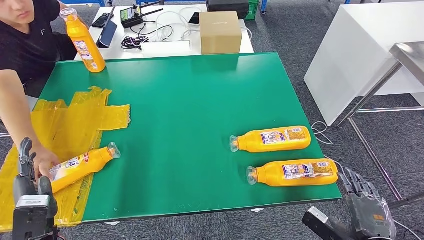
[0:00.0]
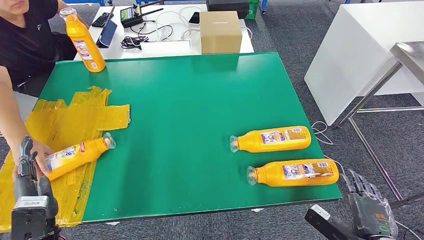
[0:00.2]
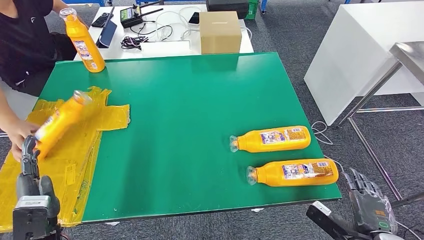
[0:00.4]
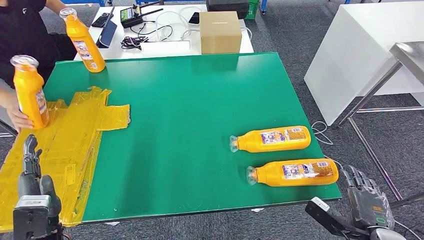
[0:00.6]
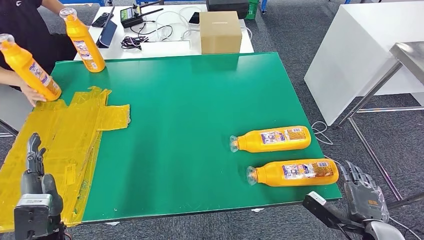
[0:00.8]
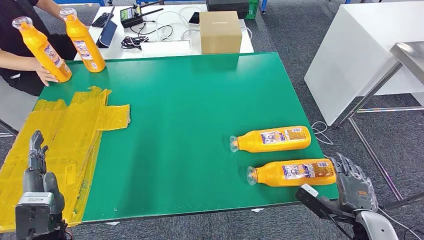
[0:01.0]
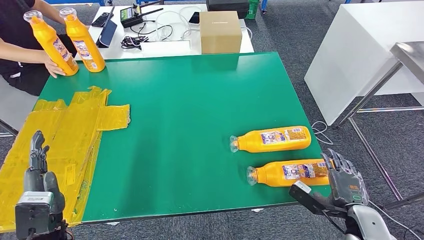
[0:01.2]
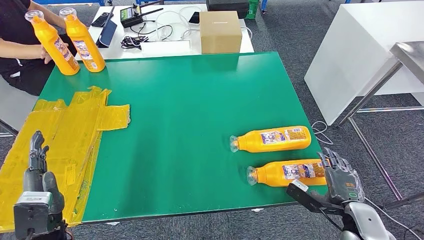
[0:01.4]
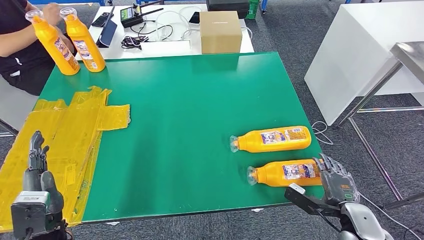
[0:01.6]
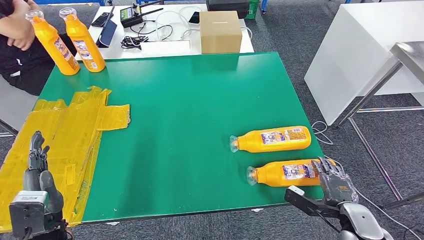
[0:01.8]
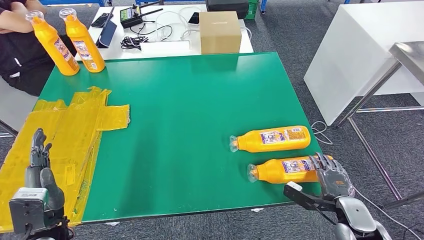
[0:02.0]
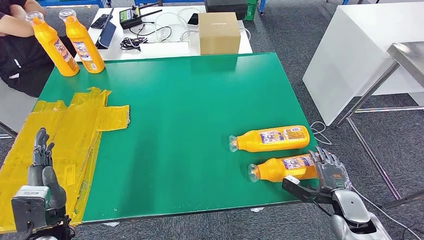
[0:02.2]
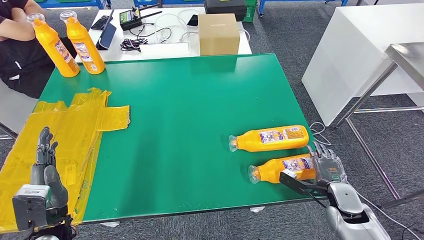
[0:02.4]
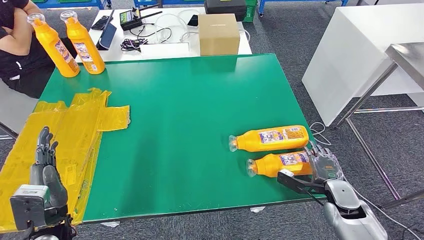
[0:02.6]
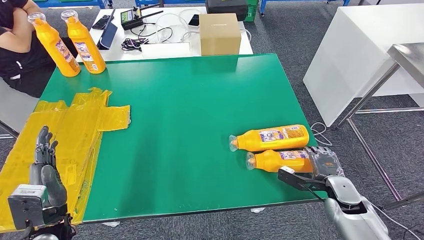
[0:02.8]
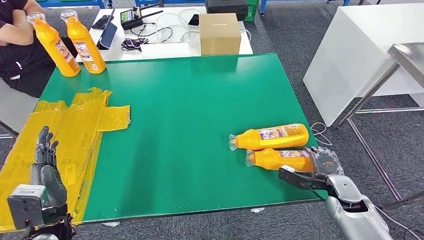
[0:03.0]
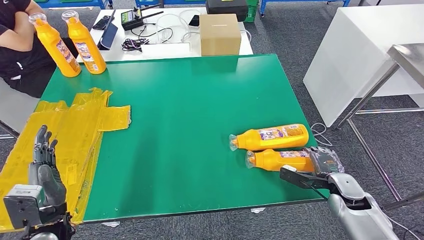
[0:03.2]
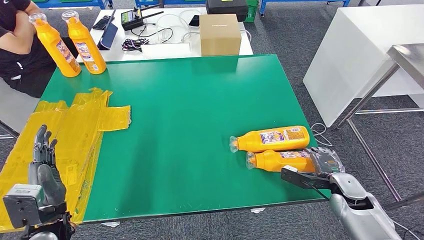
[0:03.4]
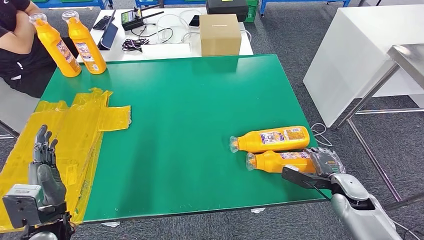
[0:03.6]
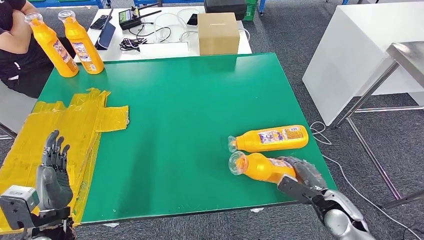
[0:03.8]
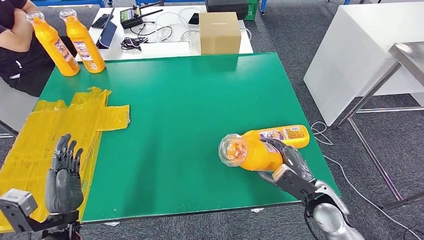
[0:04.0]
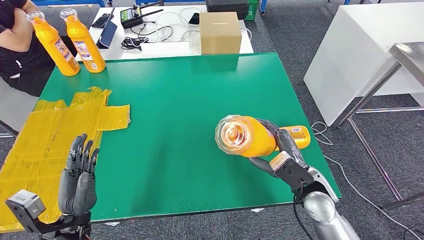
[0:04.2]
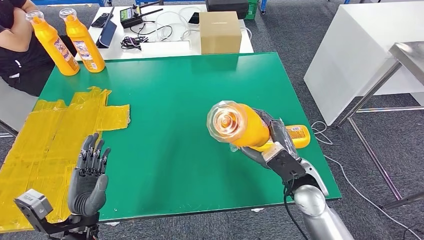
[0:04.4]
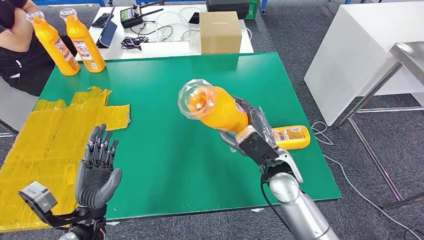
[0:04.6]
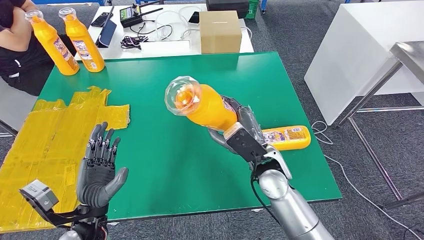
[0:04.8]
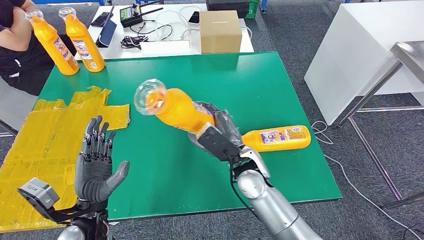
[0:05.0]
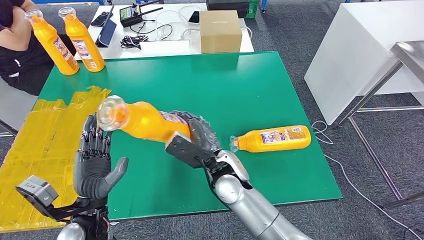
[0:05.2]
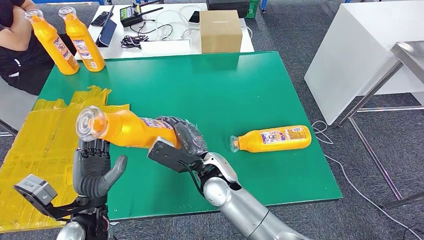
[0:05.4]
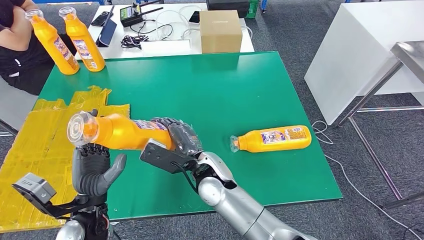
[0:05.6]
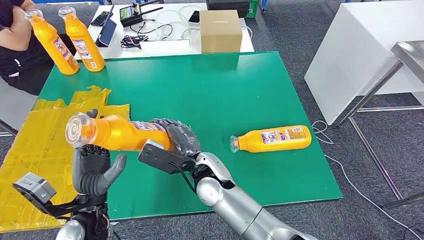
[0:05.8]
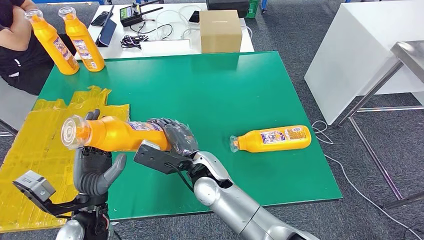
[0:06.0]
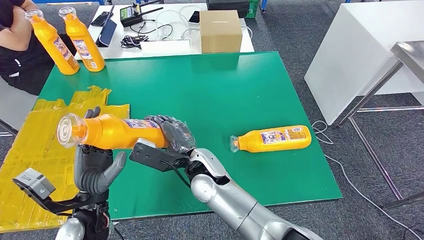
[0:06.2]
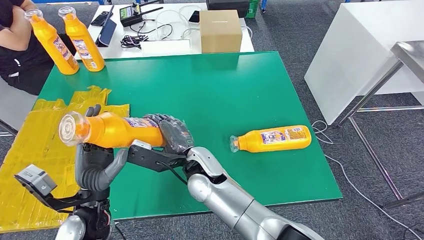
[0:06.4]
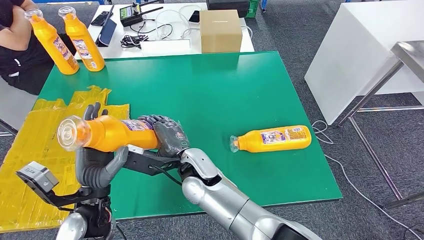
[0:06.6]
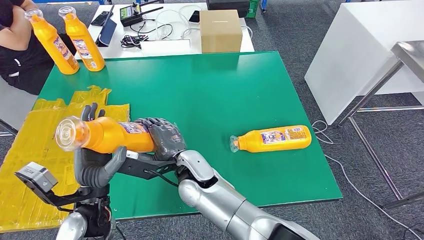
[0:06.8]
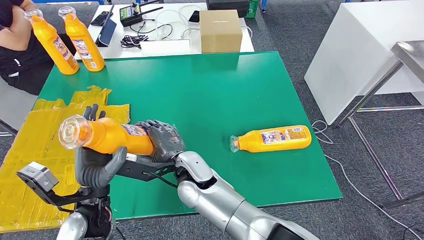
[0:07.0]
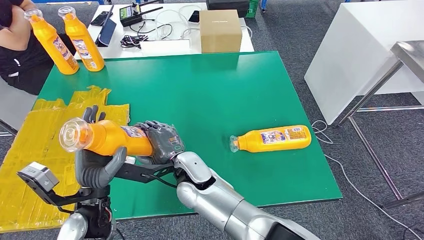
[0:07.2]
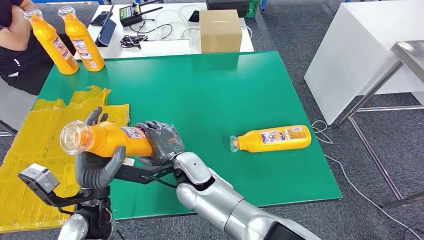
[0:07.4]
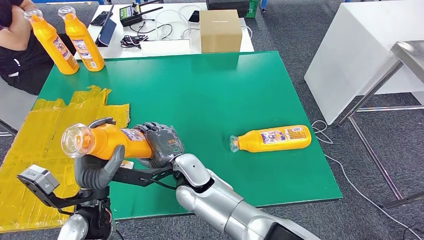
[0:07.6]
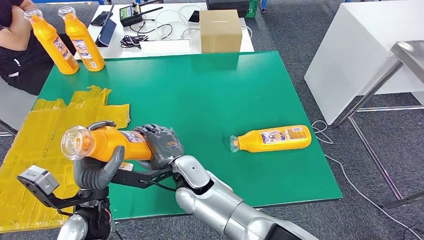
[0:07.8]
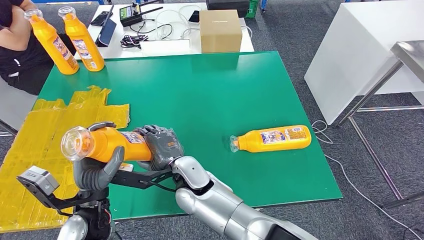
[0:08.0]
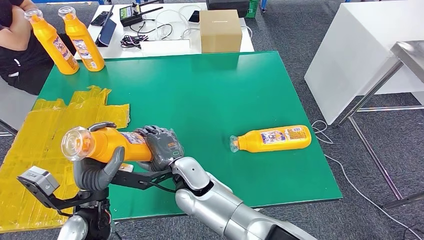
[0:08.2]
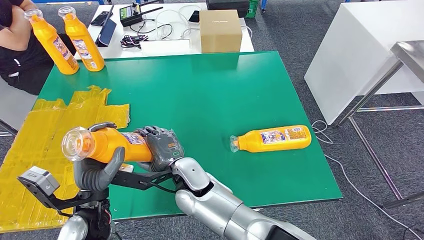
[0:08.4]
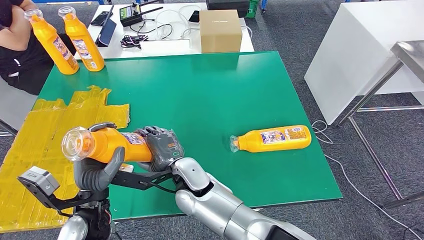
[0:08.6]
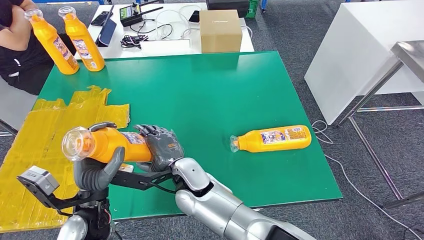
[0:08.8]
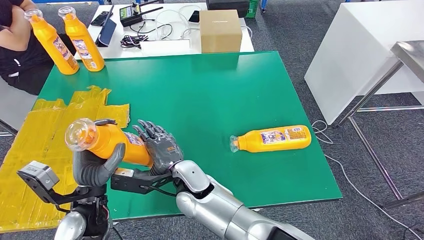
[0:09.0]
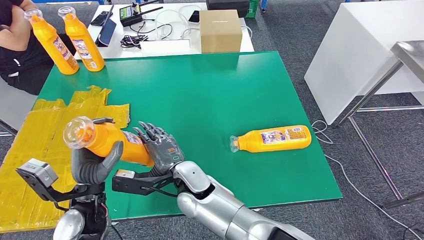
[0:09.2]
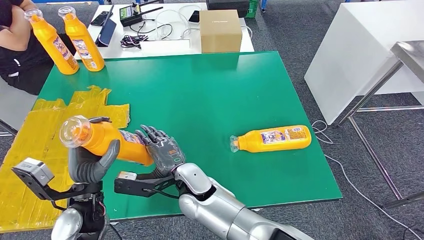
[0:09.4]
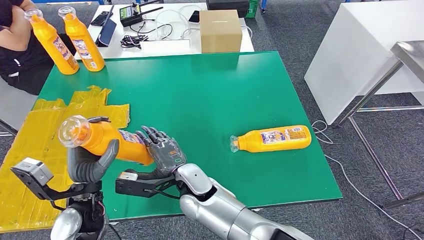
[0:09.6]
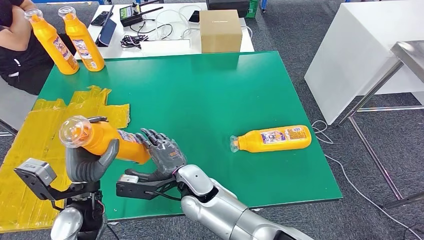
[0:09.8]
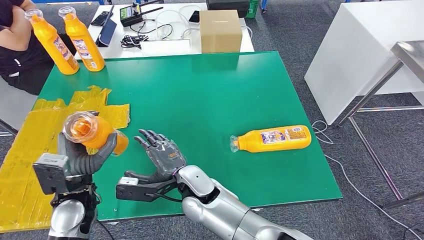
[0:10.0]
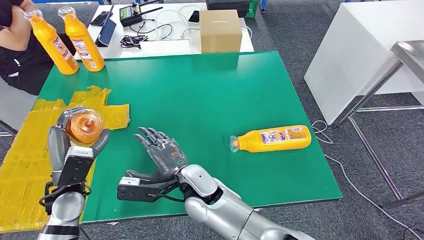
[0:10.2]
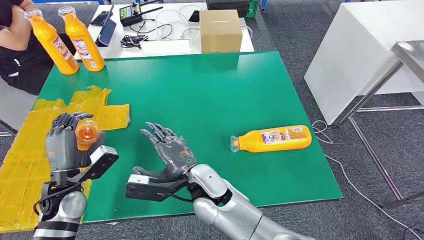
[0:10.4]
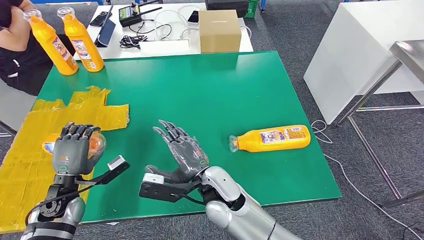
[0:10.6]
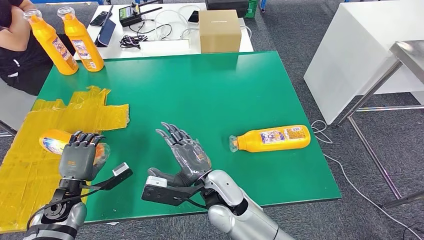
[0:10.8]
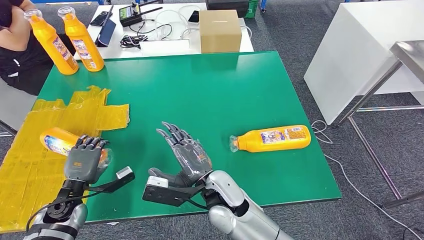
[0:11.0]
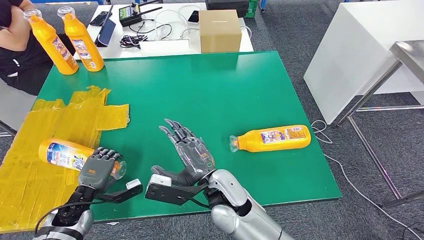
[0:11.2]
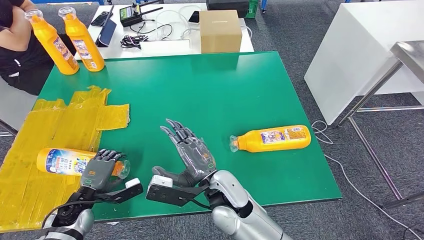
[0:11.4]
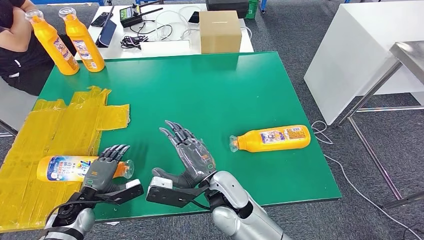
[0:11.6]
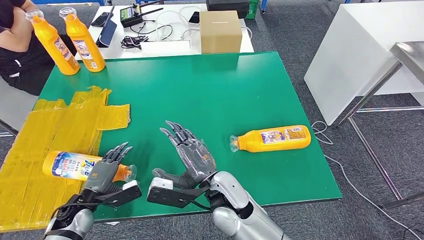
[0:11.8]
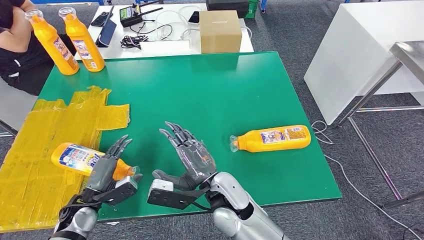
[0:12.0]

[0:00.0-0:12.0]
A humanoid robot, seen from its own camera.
Step, 0:00.0 to 0:05.8: Pick up the fast-moving consumer goods bottle from the table.
Step, 0:06.0 to 0:11.6: Flip the fast-moving consumer goods bottle to the front side.
0:00.0 to 0:01.6: The right hand goes roughly 10 cm forward.
0:01.6 to 0:03.0: The right hand is displaced forward by some 10 cm.
0:06.0 to 0:07.6: The right hand changes place by some 5 cm.
0:07.6 to 0:09.0: Both hands stay put.
0:09.0 to 0:10.4: The left hand shifts approximately 10 cm to the left and forward.
0:10.4 to 0:12.0: The left hand travels downward by some 10 cm. The right hand changes place by some 5 cm.

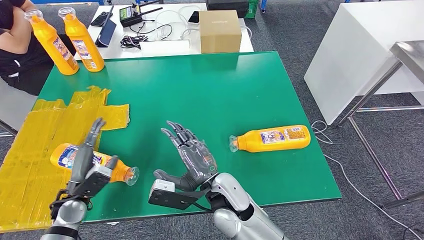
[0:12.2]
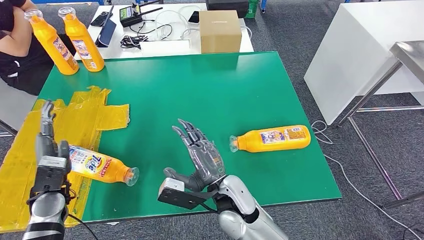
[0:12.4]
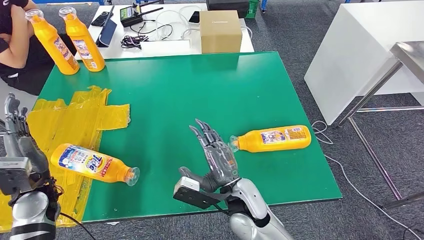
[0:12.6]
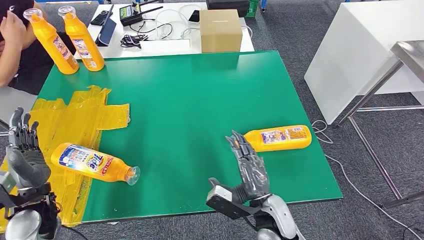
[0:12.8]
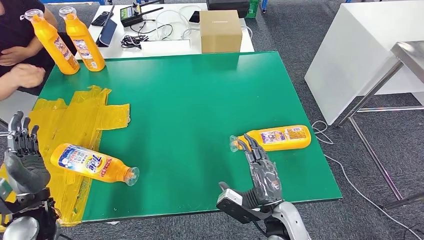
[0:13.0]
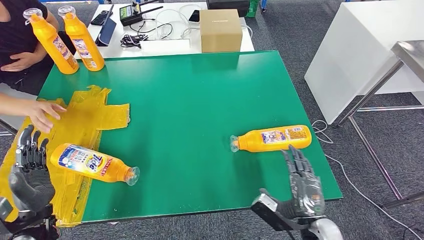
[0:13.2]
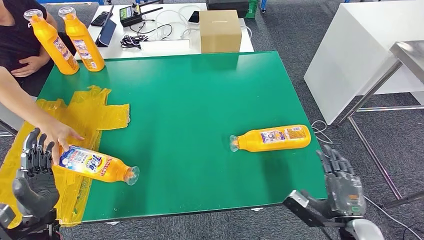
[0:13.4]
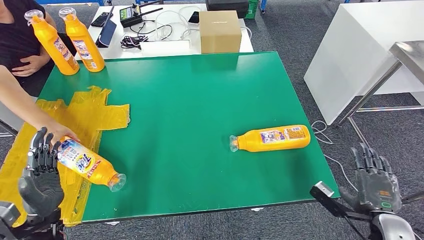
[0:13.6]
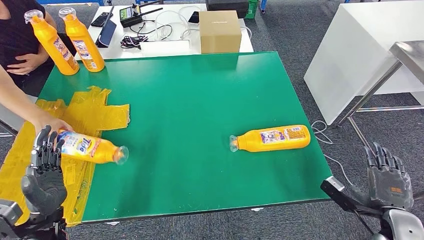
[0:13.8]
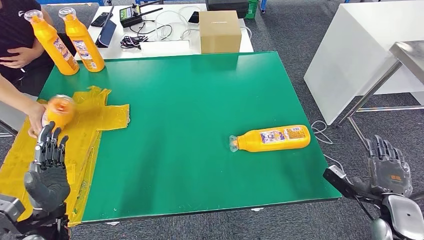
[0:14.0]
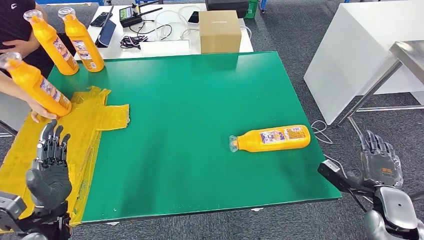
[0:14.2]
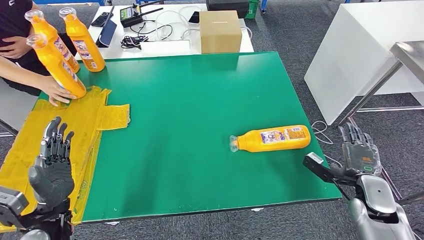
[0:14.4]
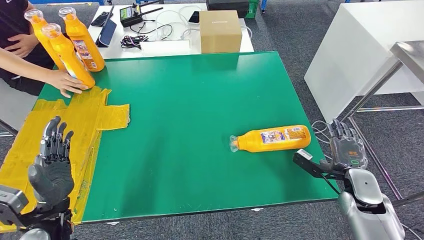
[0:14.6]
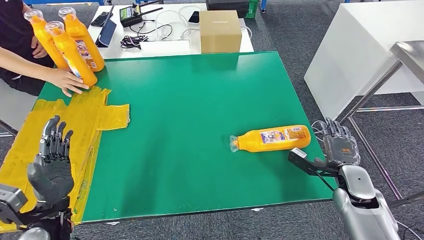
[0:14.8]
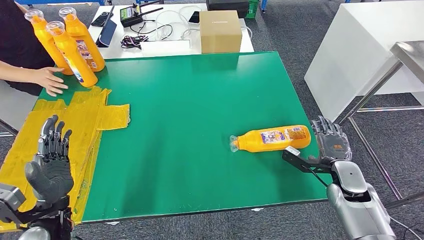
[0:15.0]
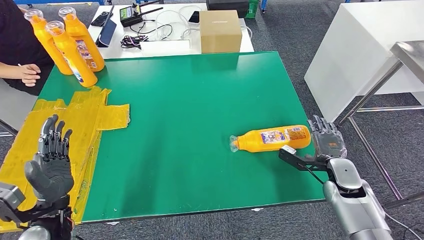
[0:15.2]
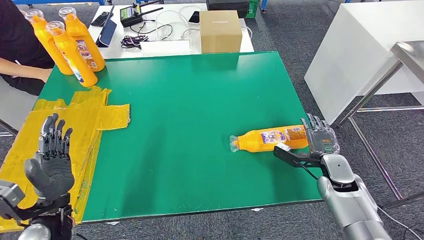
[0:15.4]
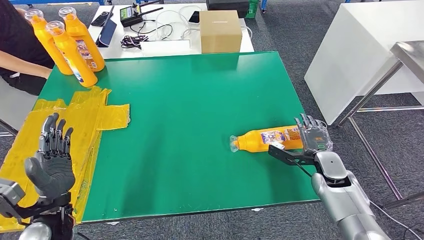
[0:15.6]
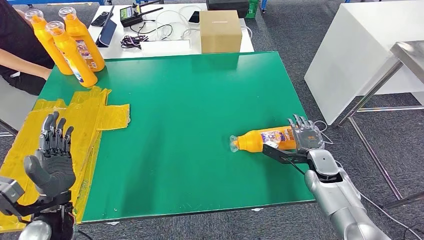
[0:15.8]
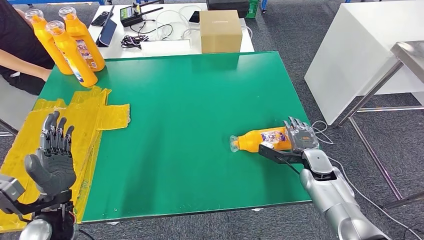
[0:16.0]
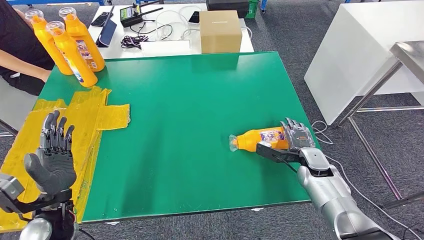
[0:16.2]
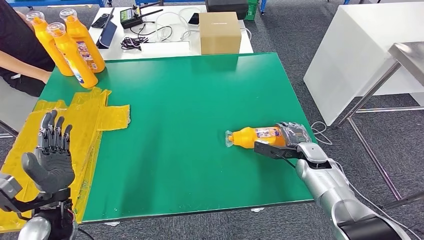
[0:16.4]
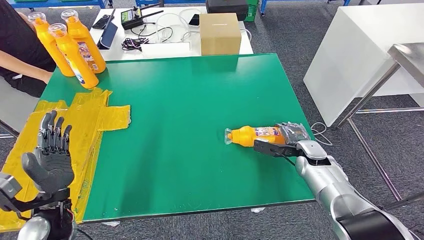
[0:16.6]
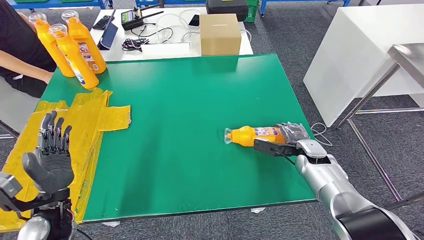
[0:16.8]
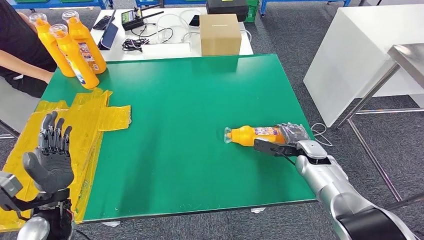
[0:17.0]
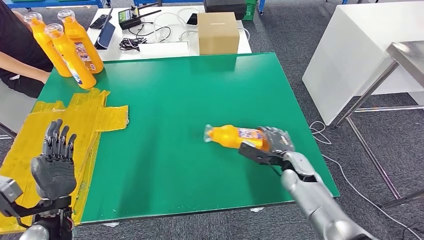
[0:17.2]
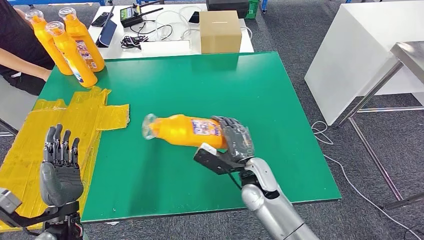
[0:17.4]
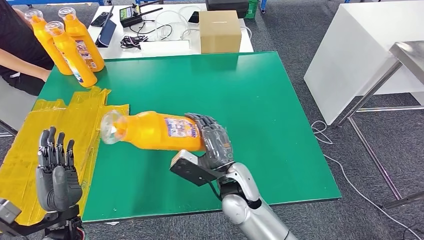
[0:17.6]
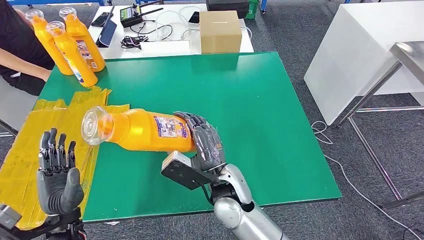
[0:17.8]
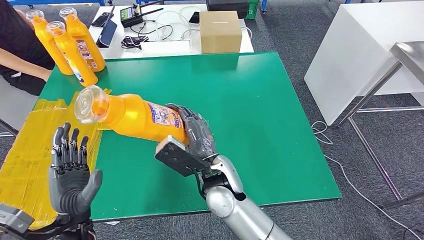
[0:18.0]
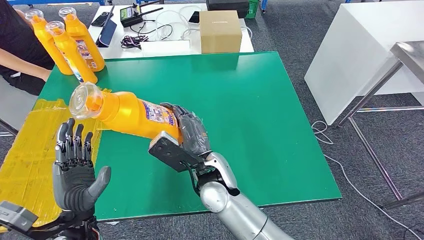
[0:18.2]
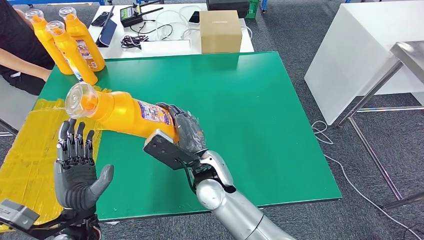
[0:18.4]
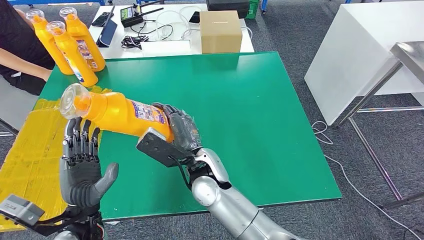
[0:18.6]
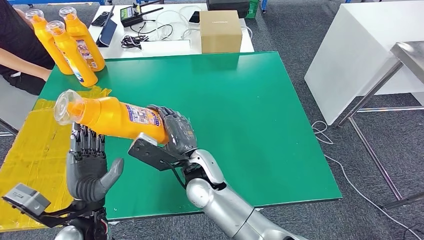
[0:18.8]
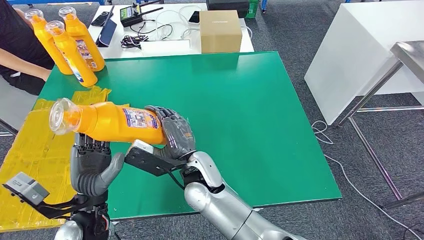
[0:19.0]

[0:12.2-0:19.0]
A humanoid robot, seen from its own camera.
0:13.6 to 0:15.0: The right hand travels forward by roughly 15 cm.
0:15.0 to 0:16.2: The right hand heads forward, covering about 5 cm.
0:17.6 to 0:19.0: The left hand moves to the right, roughly 5 cm. The right hand shifts about 10 cm to the left.
